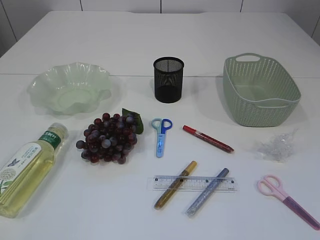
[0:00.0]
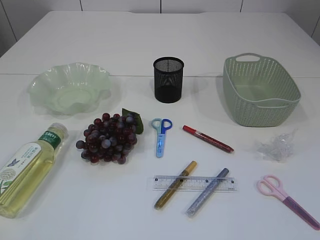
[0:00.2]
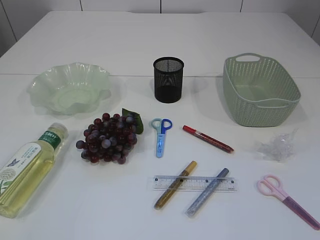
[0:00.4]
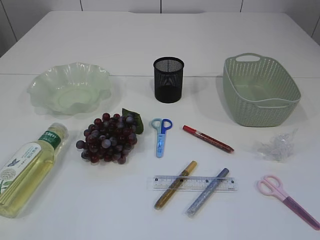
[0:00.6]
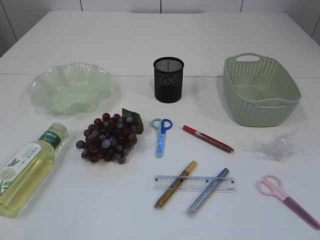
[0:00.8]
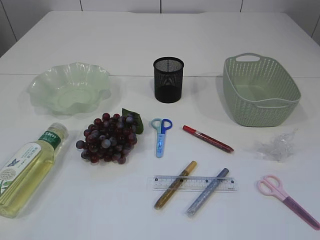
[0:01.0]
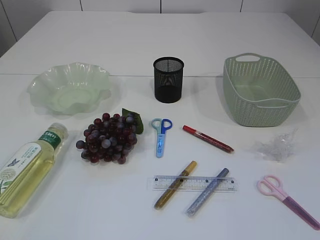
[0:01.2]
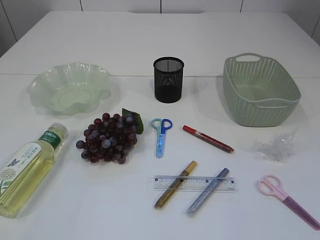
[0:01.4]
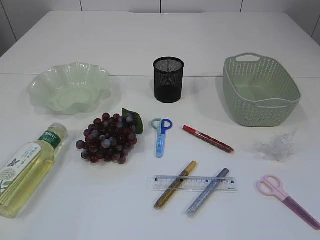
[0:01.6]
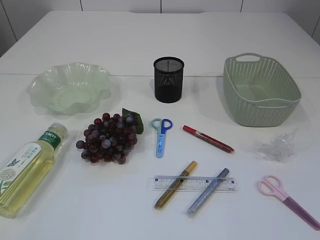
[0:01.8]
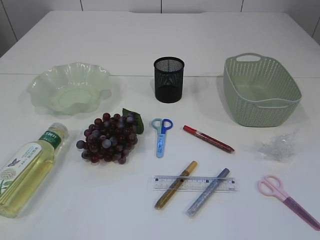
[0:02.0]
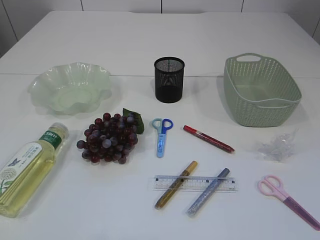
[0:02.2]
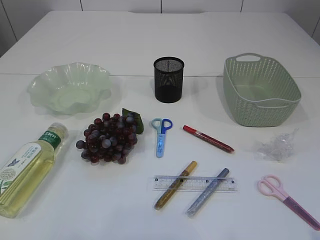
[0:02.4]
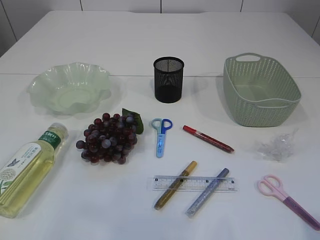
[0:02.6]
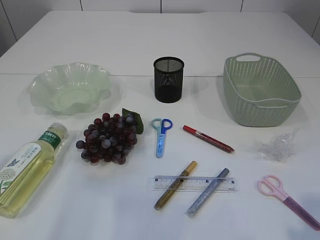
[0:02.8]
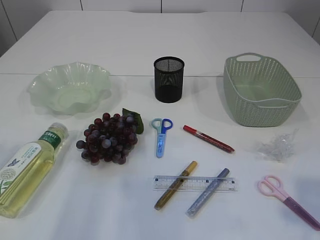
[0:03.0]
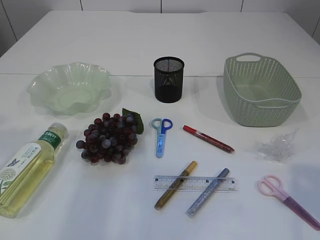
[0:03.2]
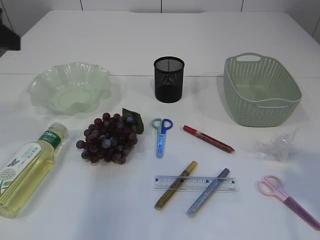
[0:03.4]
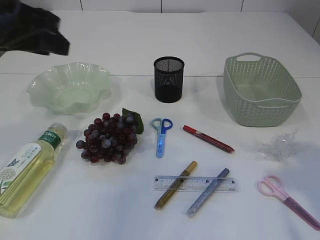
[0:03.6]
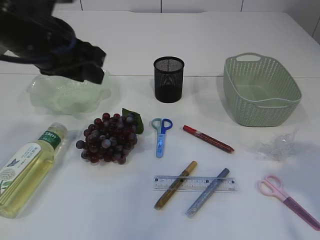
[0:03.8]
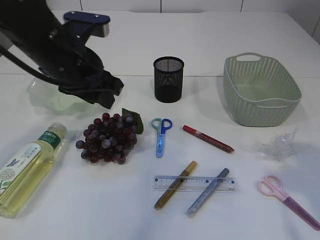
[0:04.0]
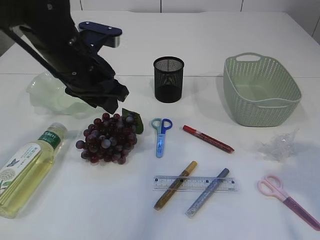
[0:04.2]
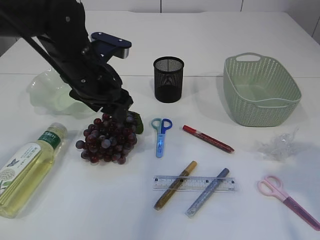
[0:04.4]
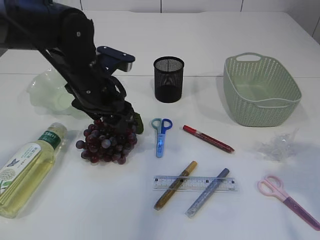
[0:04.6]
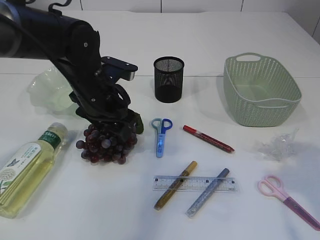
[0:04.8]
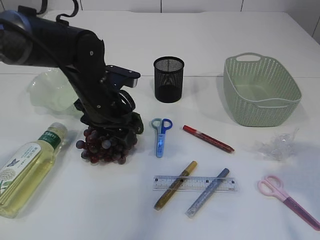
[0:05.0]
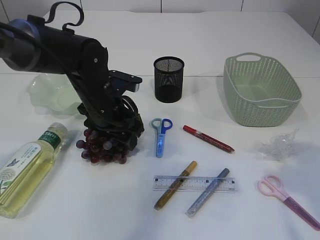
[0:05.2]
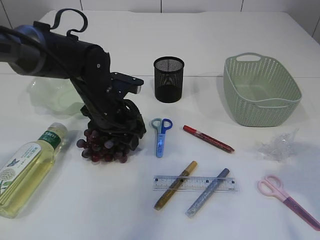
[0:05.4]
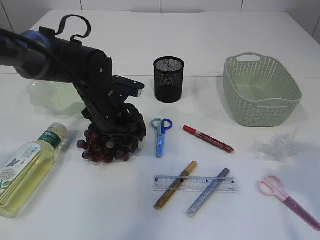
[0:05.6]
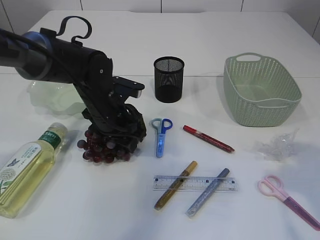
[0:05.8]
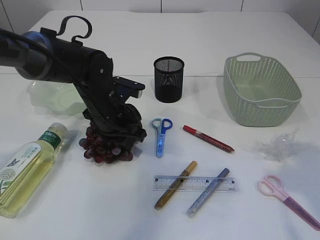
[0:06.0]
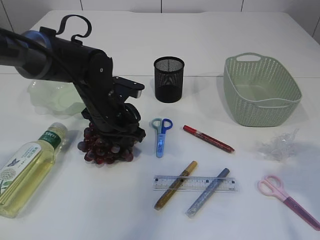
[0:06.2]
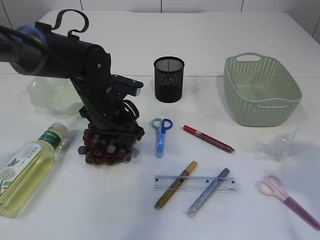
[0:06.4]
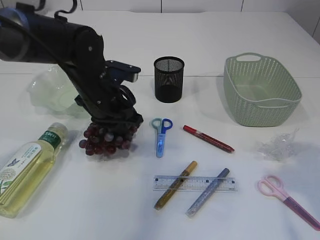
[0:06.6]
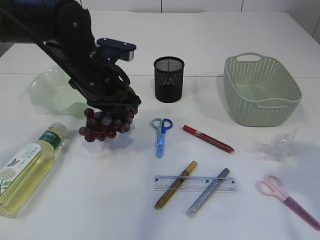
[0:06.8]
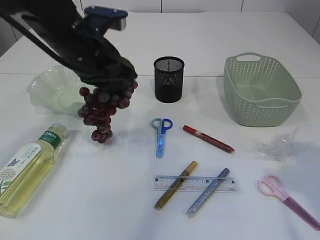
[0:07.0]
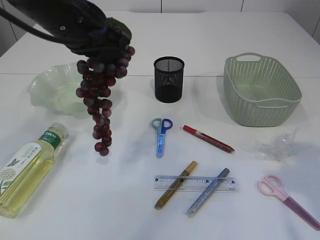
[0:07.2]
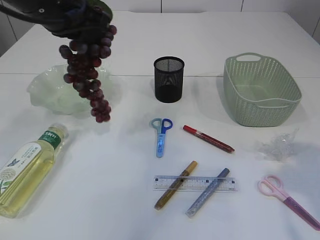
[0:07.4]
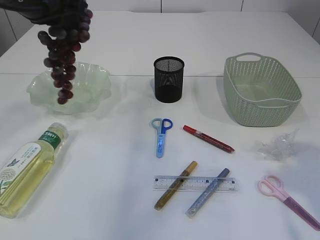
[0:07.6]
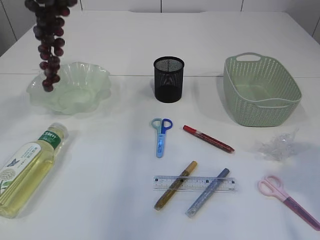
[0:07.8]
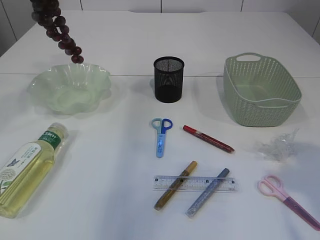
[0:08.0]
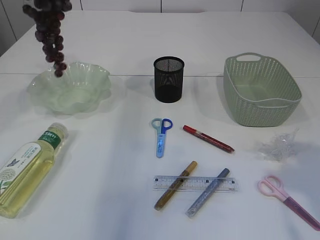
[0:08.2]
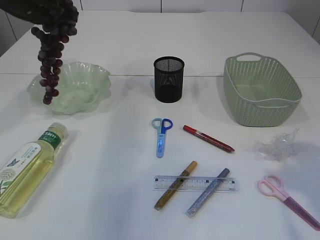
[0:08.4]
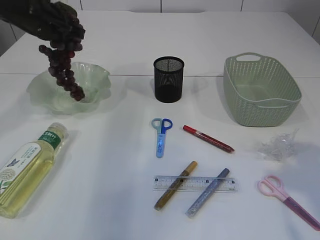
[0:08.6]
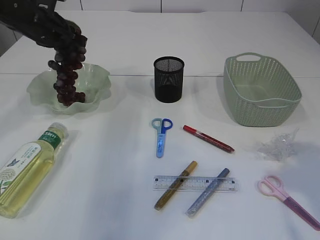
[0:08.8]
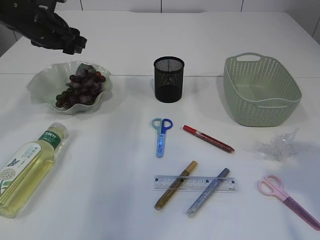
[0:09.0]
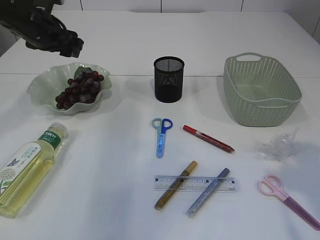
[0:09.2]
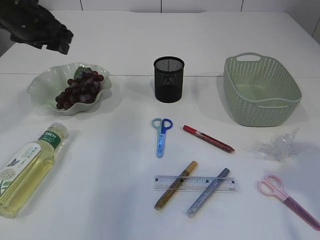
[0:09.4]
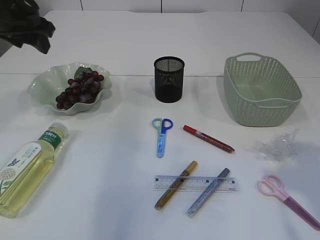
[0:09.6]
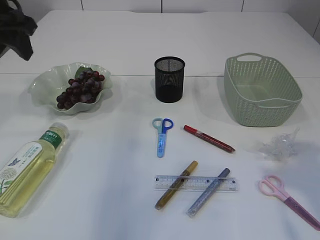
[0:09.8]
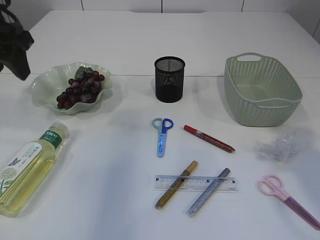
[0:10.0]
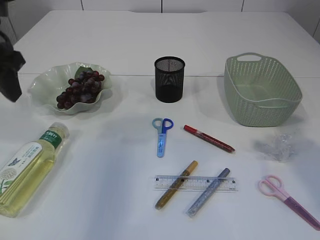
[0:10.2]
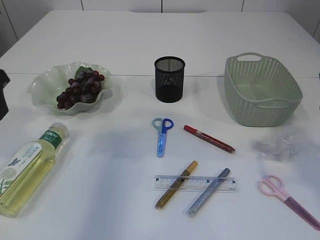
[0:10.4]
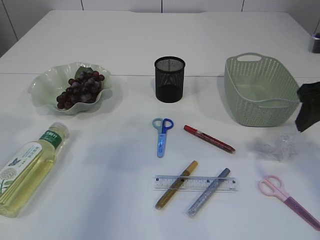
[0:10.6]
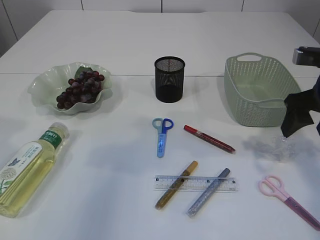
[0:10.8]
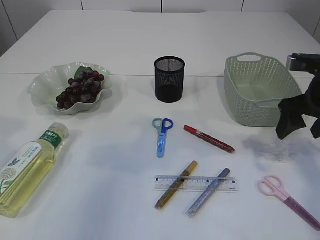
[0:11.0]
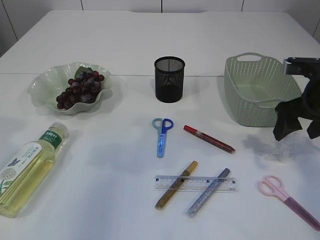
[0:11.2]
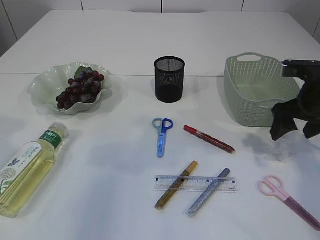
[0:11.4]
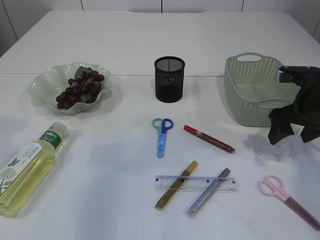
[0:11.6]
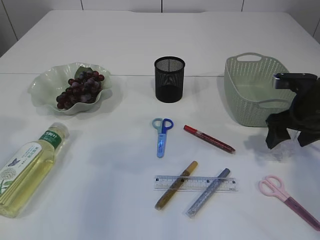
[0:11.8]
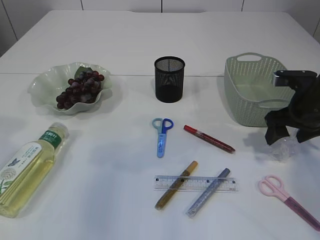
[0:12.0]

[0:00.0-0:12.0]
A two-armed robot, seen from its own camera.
Step, 0.0 to 7.4 s: Pick up the grapes.
Step, 7.6 to 9.4 s: Place the grapes in the plate.
1.6 to 3.0 s: The left gripper travels forward by roughly 20 cm. Meanwhile the right gripper goes about 10 cm forward.
3.0 to 4.4 s: The left gripper moves to the right, forward and downward, approximately 25 cm, while the right gripper is displaced forward by roughly 10 cm.
4.4 to 6.0 s: The left gripper shifts some 10 cm downward, and closes its fingers.
6.0 to 7.6 s: The left gripper travels upward and to the left by some 20 cm, and closes up.
7.6 to 9.0 s: The left gripper is displaced forward and downward by roughly 15 cm, and opens its fingers.
9.0 to 10.4 s: The left gripper travels backward by approximately 15 cm. The right gripper moves forward, about 10 cm.
10.4 to 12.0 s: The right gripper heads downward and forward, covering approximately 15 cm.

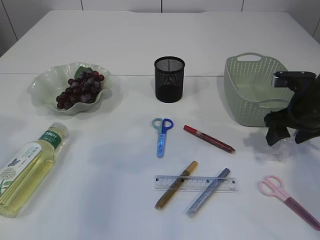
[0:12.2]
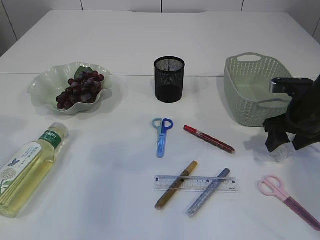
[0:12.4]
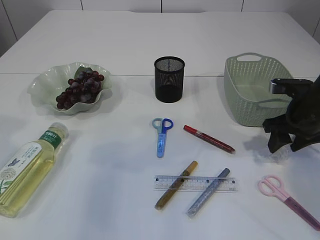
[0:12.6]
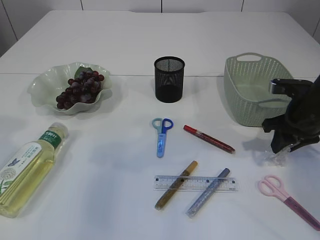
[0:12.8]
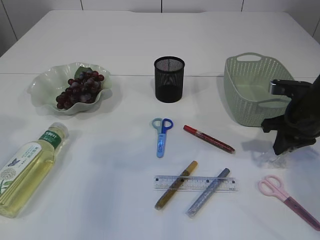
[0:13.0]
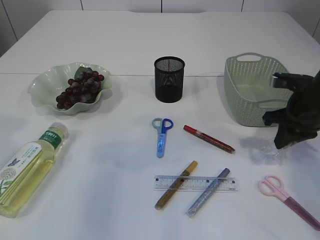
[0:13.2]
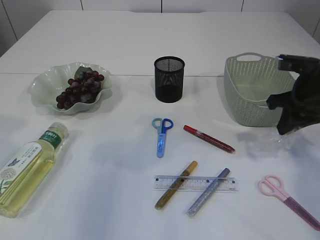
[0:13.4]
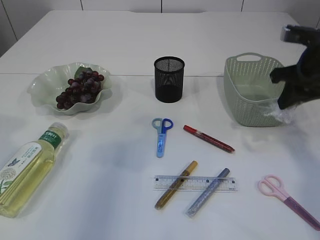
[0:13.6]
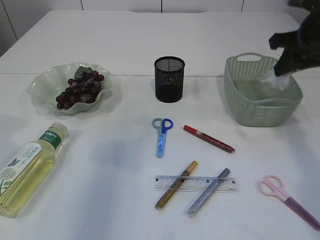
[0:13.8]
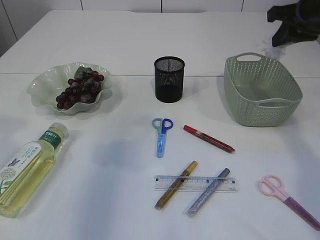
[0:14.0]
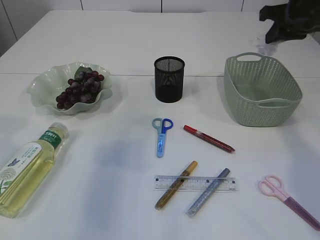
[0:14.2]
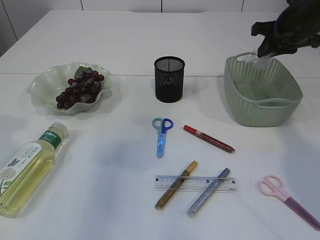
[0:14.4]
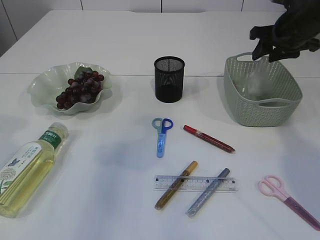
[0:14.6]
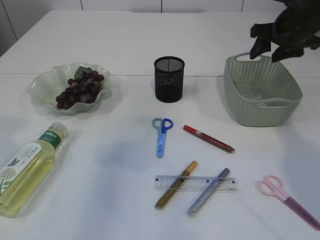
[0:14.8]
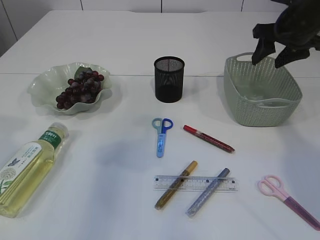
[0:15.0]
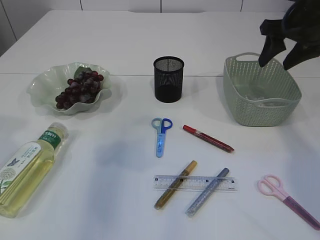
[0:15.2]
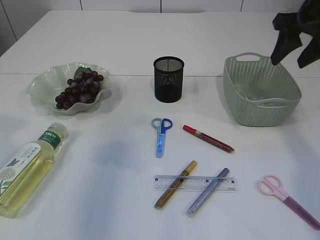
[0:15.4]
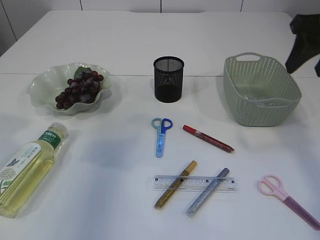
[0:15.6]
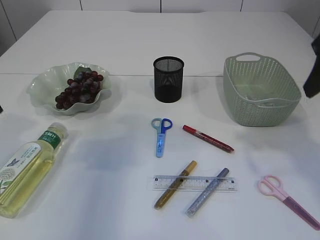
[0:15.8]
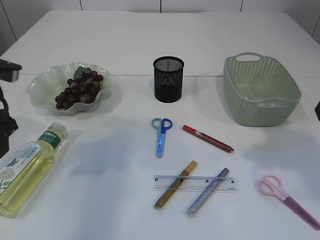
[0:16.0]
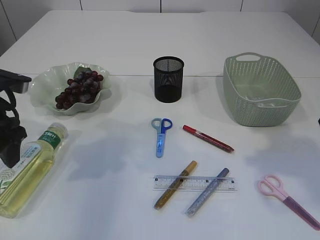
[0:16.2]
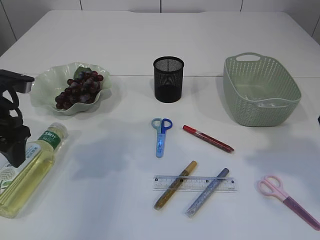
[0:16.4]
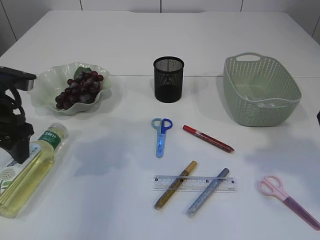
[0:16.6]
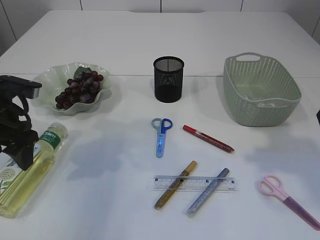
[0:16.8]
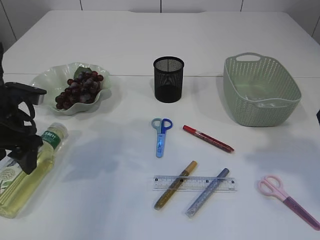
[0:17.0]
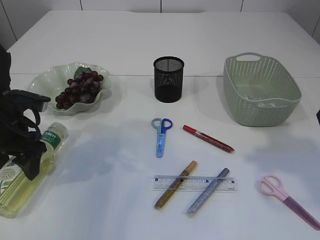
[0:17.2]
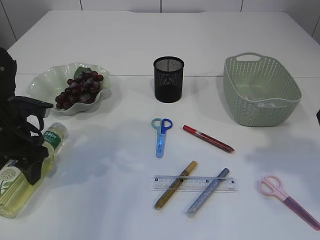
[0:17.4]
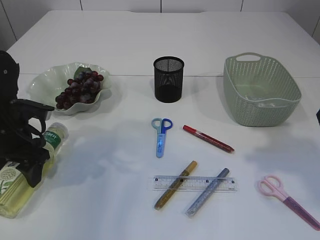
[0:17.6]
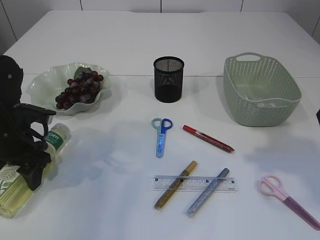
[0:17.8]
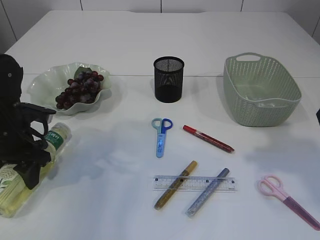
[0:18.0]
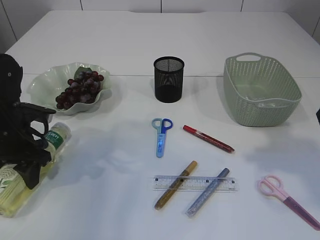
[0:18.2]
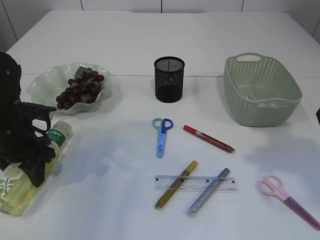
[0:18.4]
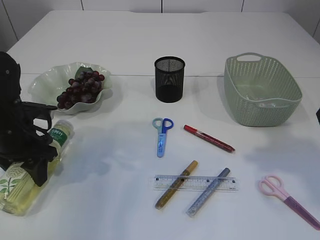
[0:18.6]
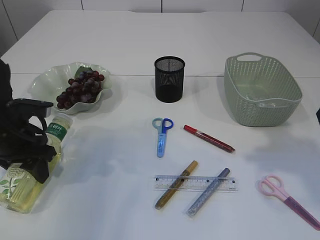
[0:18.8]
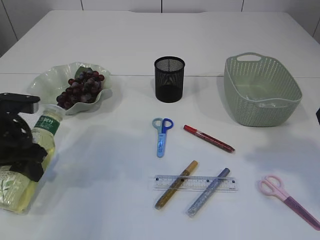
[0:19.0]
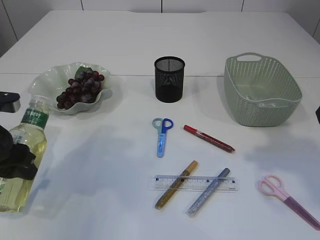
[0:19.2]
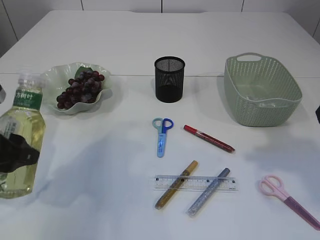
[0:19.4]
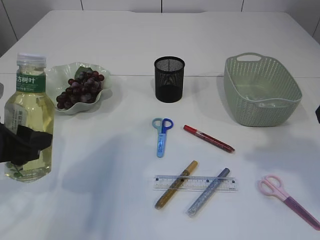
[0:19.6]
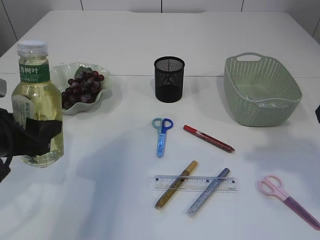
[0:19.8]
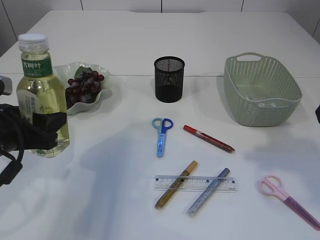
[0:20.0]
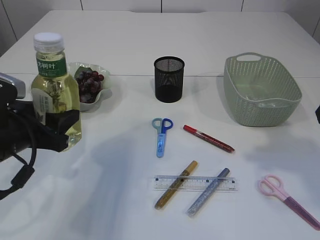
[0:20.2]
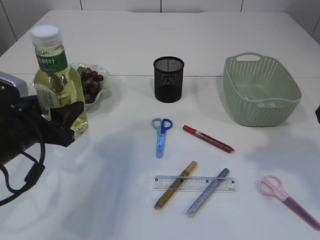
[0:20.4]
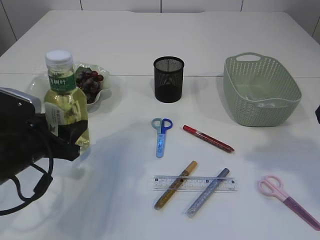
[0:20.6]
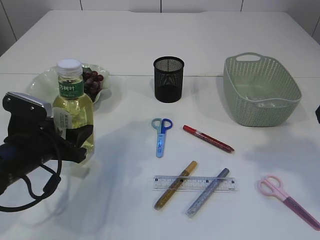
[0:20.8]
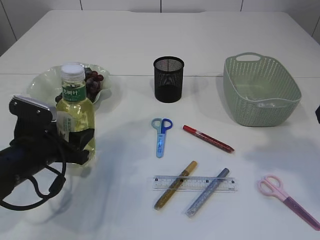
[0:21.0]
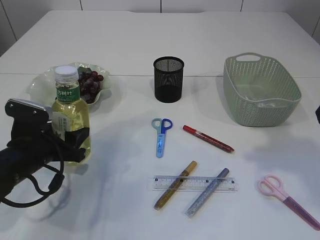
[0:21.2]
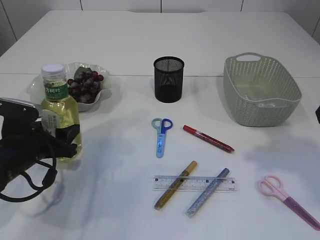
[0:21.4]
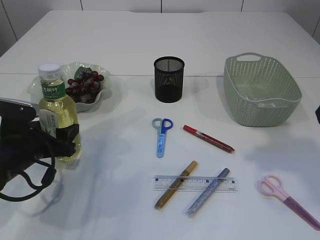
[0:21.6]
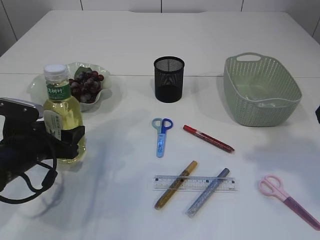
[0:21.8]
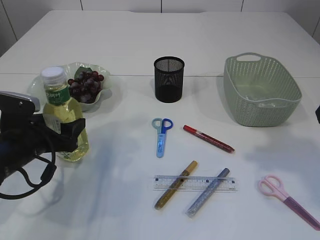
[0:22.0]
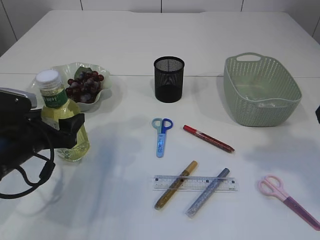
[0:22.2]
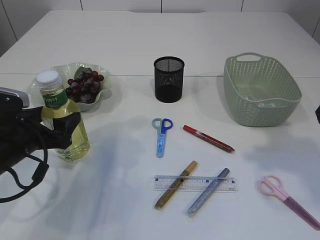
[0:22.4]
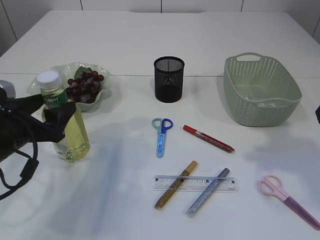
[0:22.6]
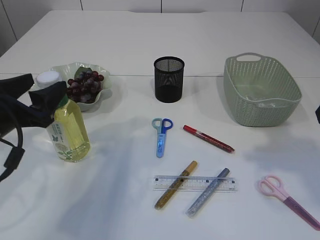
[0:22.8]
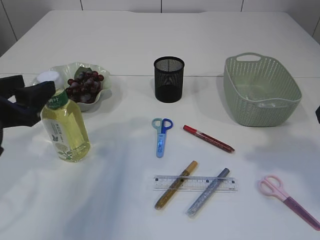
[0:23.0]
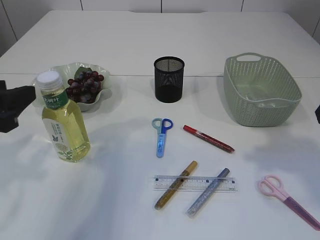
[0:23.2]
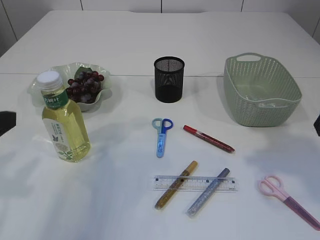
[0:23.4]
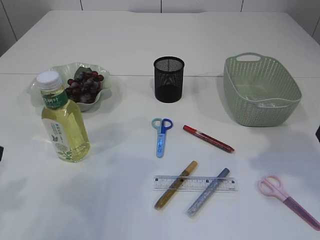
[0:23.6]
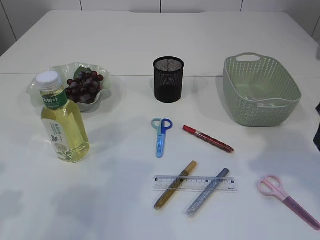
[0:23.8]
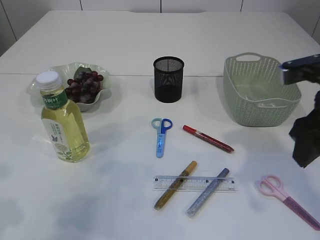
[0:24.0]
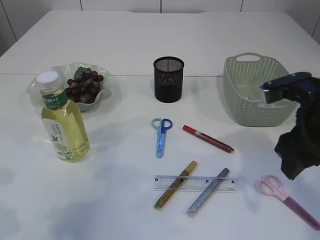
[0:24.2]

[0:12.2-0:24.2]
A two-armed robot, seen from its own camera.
Step, 13.8 to 15.2 s: Place the plastic in the basket.
Step, 15.4 to 19.4 s: Pick up the bottle with the left arm.
Step, 19.6 to 23.2 s: Place the bottle.
12.2 to 13.8 s: The right gripper moves upward, some 15 cm, and closes up.
13.8 to 15.2 s: The right gripper opens its fingers.
15.2 to 16.6 s: The right gripper is displaced backward by approximately 20 cm. Meanwhile the left gripper is displaced downward and forward by about 15 cm.
16.6 to 18.2 s: The left gripper goes approximately 10 cm downward.
18.2 to 19.8 s: The left gripper moves backward and upward, about 10 cm.
19.8 to 21.2 s: The left gripper travels downward and forward by some 10 cm.
21.2 to 22.6 s: The left gripper is displaced upward by approximately 5 cm.
22.6 to 24.2 s: The left gripper goes approximately 15 cm backward and upward, while the right gripper shifts roughly 10 cm downward.
